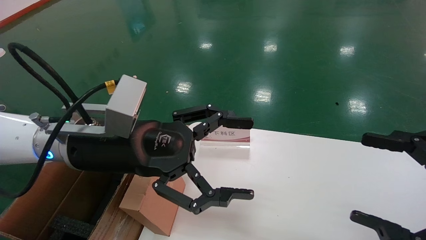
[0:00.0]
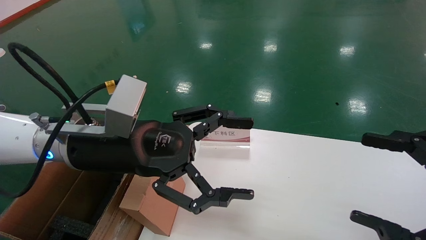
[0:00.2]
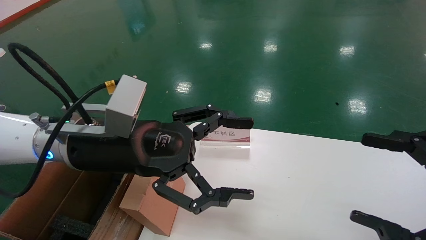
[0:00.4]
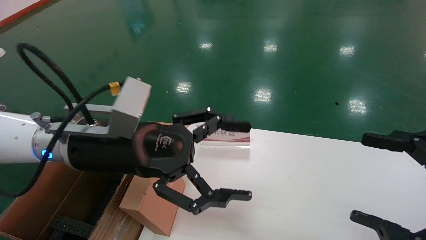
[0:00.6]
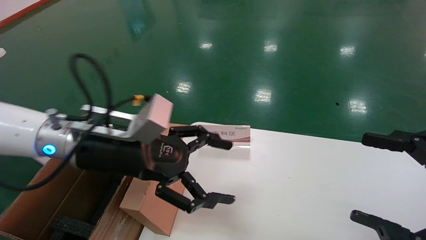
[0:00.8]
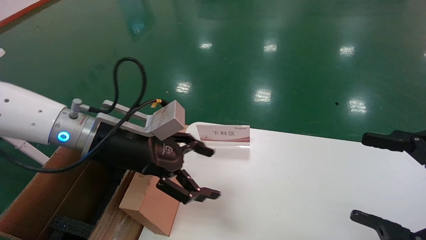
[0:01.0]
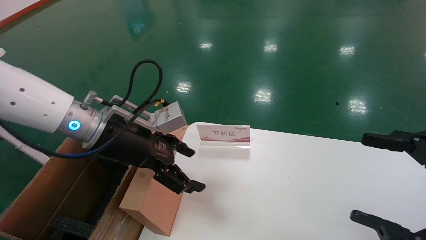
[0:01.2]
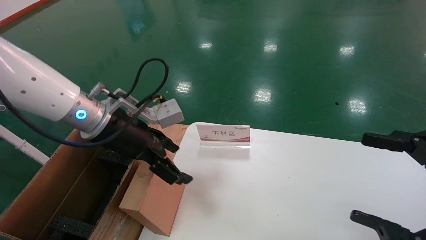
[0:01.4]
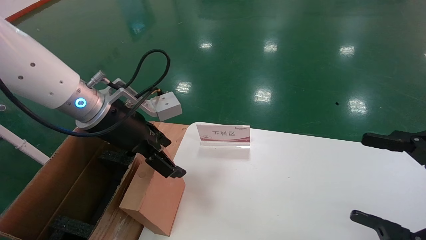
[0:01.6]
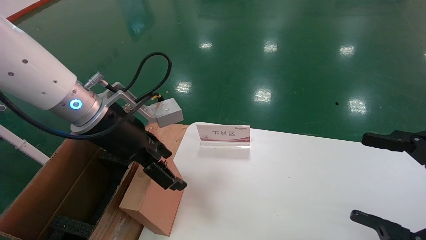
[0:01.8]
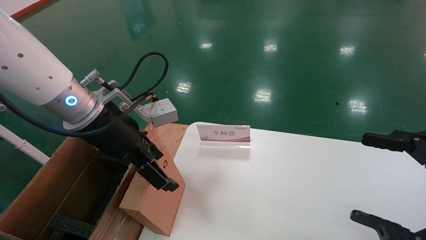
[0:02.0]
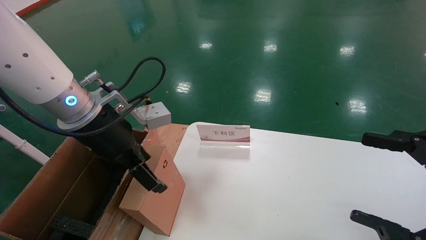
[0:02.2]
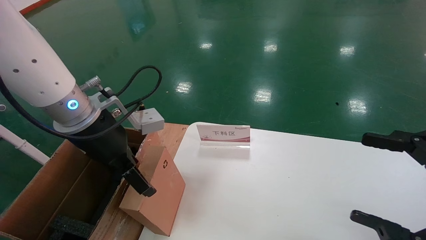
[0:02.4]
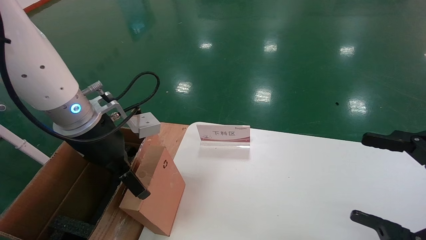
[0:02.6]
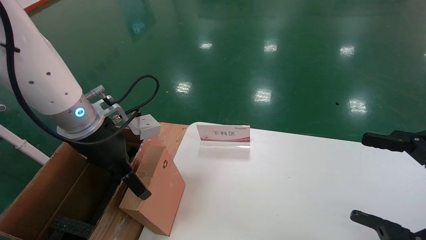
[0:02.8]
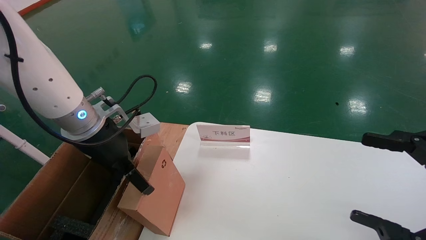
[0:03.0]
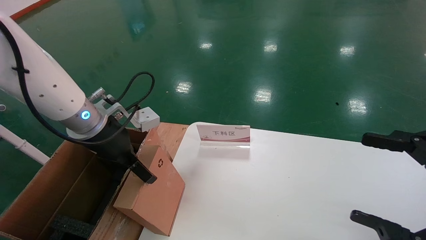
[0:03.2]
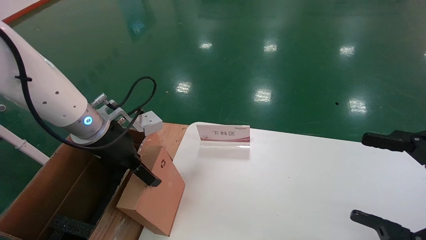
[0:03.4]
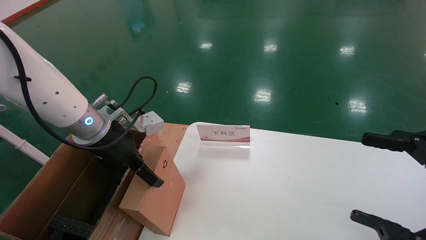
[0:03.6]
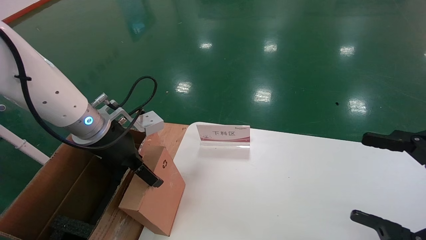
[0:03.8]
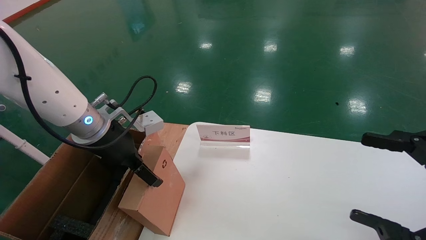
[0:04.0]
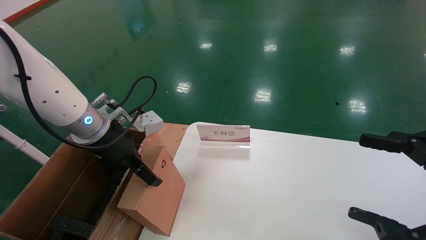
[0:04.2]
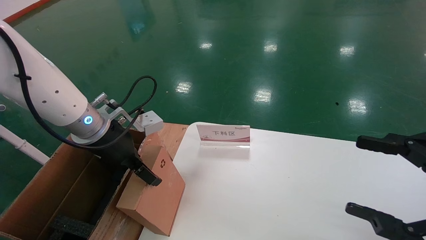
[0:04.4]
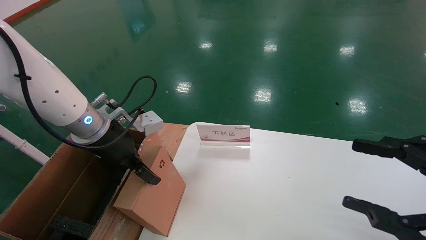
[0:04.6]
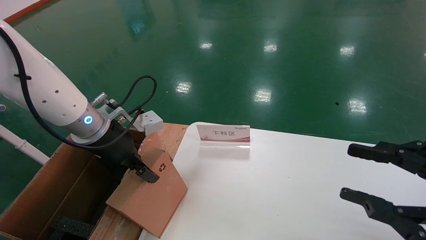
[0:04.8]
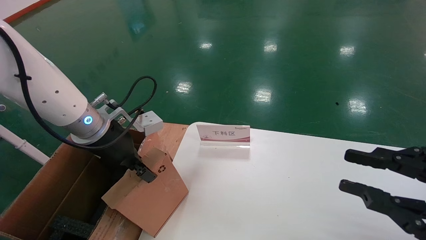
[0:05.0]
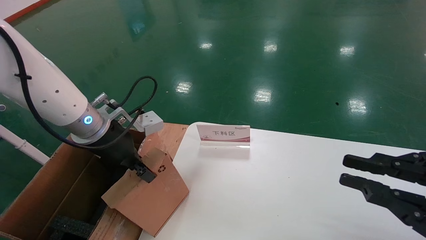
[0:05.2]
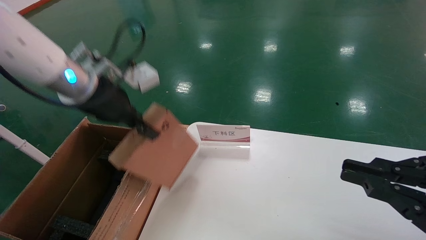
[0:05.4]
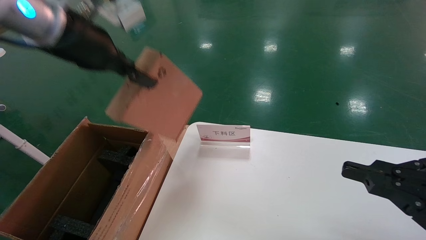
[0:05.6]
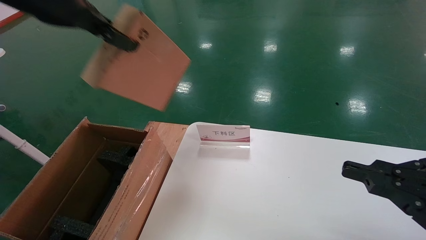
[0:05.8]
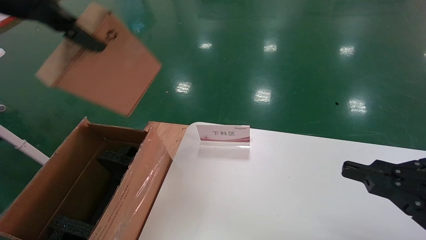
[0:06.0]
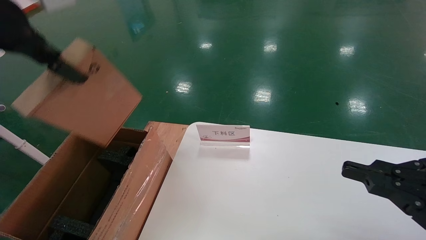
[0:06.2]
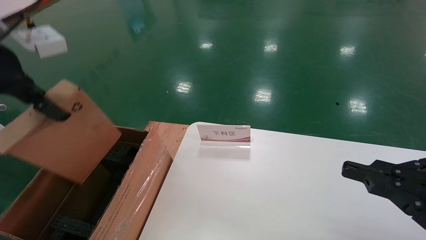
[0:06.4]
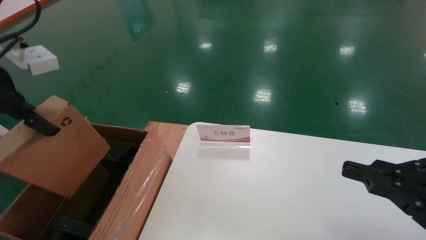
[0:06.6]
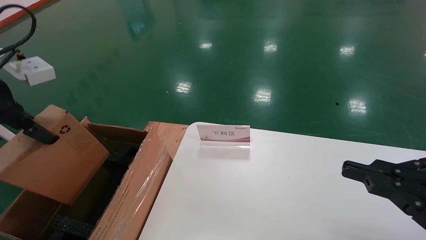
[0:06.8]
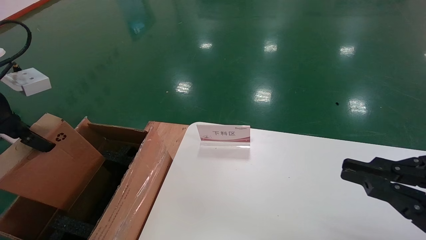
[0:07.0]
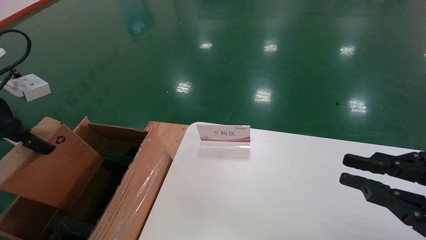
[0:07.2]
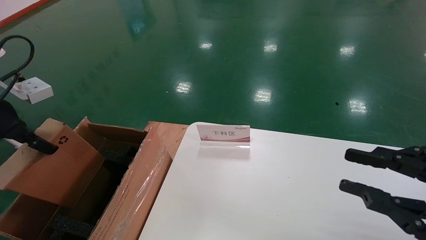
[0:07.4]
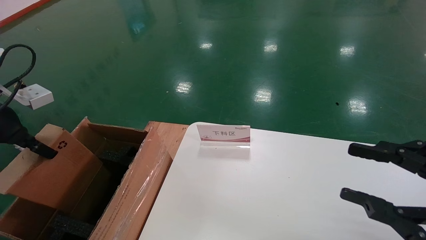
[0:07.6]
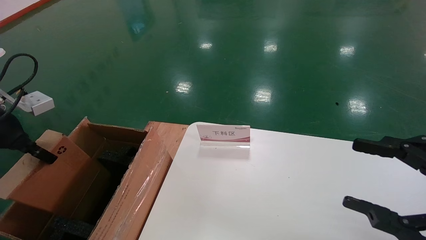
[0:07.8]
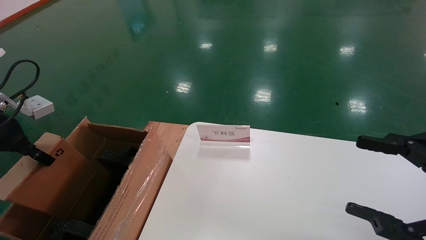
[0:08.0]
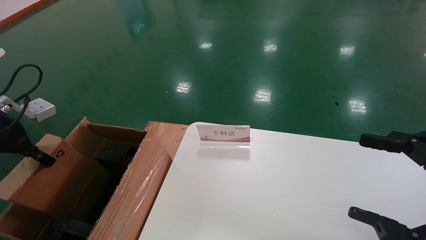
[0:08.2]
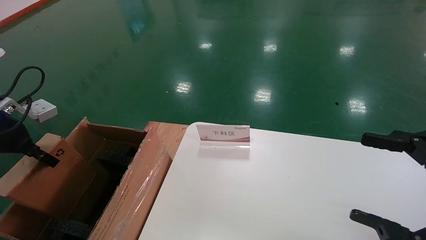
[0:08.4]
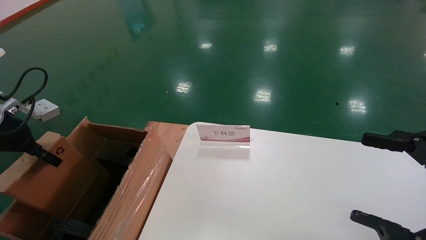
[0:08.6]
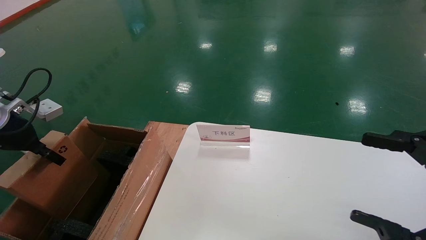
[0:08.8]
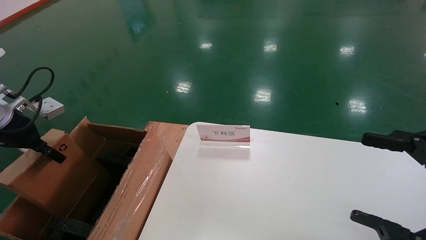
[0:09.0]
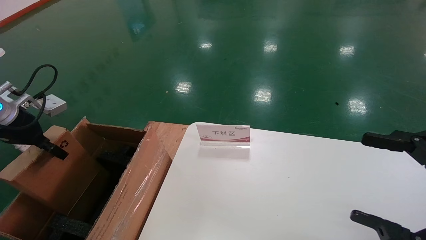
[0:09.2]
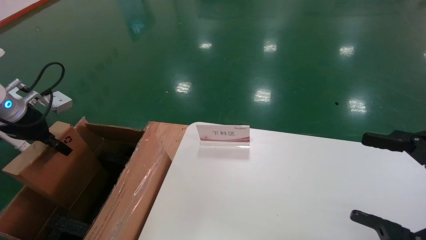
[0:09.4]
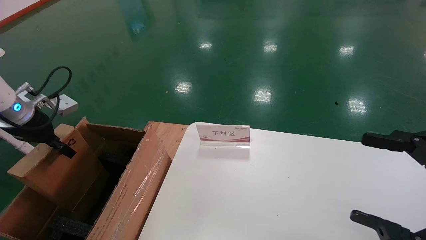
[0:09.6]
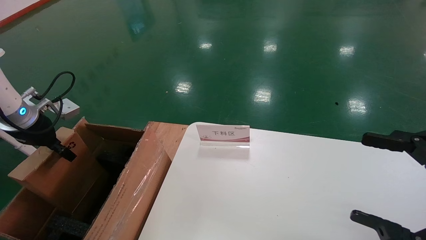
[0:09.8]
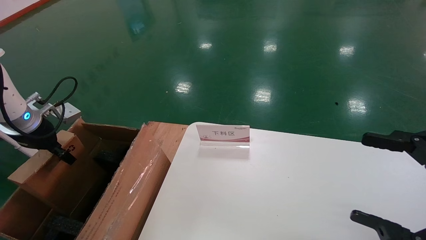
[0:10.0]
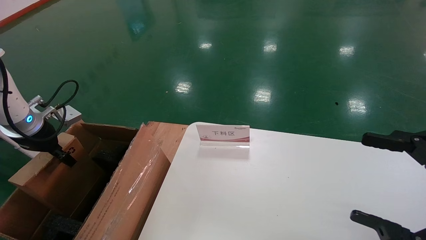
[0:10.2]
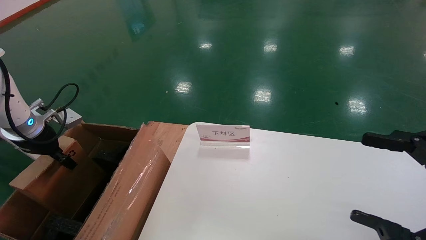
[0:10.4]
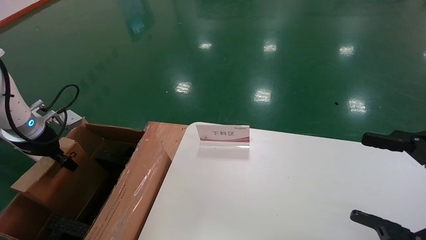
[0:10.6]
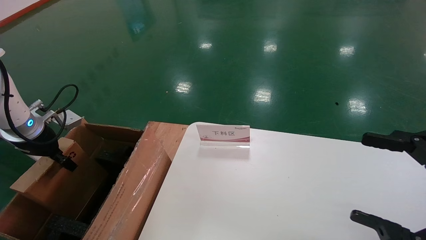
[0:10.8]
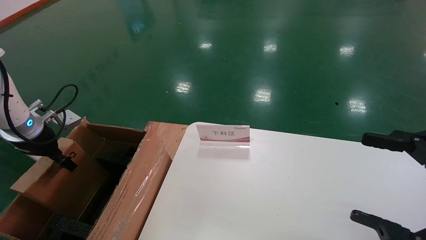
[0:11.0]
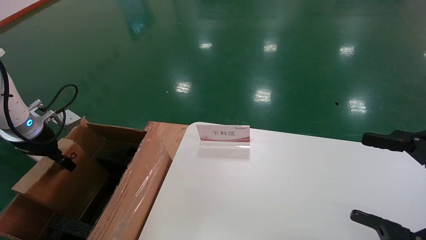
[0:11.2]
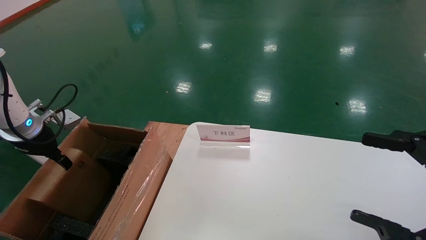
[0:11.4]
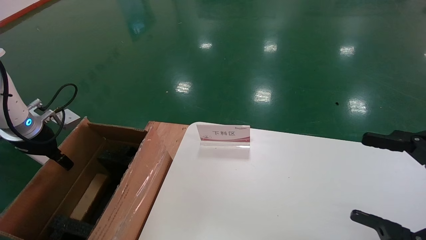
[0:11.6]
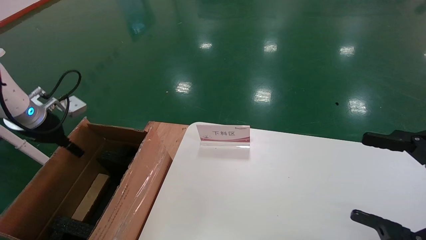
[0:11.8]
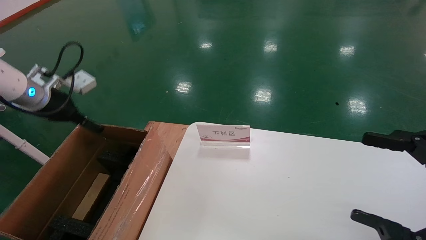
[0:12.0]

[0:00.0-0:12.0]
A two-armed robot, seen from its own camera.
Task of the whole recording: pick up the small cardboard box and load it into the large cardboard box.
Step, 0:00.8 to 0:05.4: Pick up the mouse and power cord box.
Step, 0:05.6 to 0:11.8: Place the mouse and power cord box into the case.
0:00.0 to 0:01.6: The left gripper moves forward, about 5 cm.
0:03.0 to 0:04.4: The grippers stay close to where they were, moving slightly.
0:04.4 to 0:06.0: The right gripper closes, while the left gripper shifts approximately 25 cm upward, and closes up.
0:06.0 to 0:07.6: The right gripper opens up; the left gripper goes roughly 20 cm downward and to the left.
0:07.6 to 0:09.0: The right gripper opens, while the left gripper is displaced forward by some 5 cm.
0:09.0 to 0:10.4: The left gripper ends up some 5 cm from where it was.
0:10.4 to 0:12.0: The left gripper travels upward by some 5 cm, and opens up.

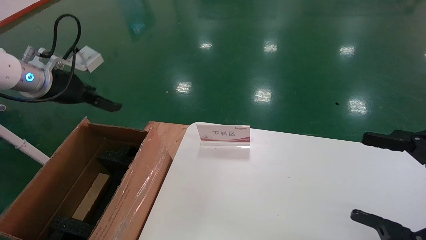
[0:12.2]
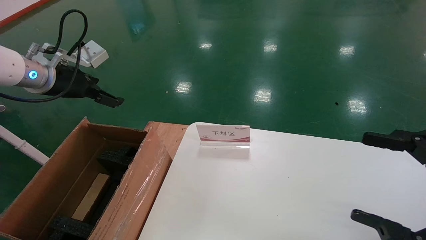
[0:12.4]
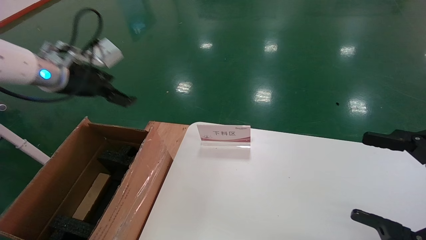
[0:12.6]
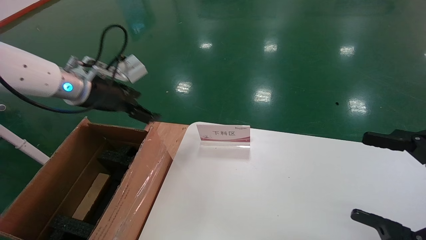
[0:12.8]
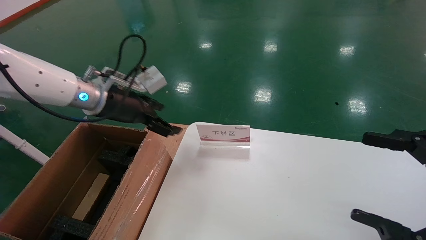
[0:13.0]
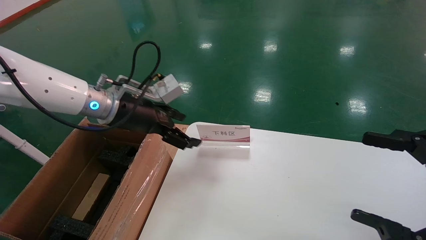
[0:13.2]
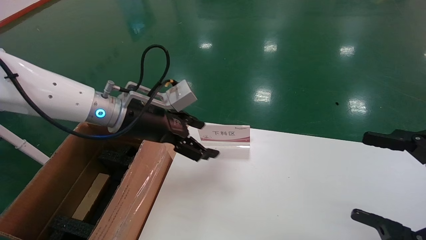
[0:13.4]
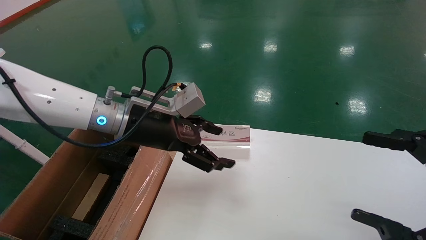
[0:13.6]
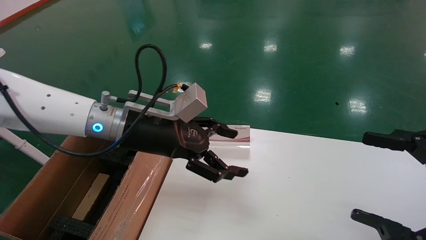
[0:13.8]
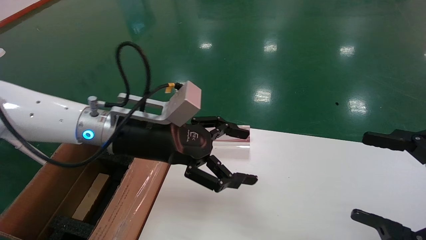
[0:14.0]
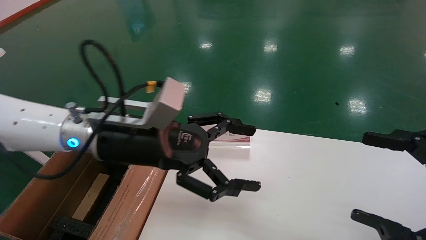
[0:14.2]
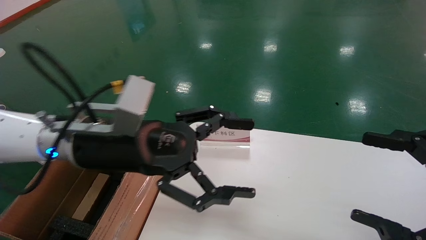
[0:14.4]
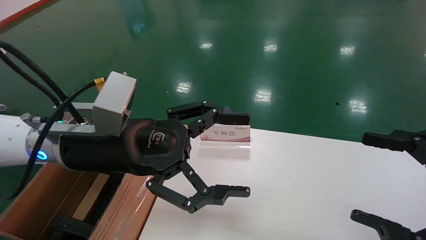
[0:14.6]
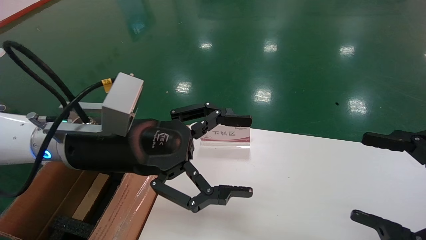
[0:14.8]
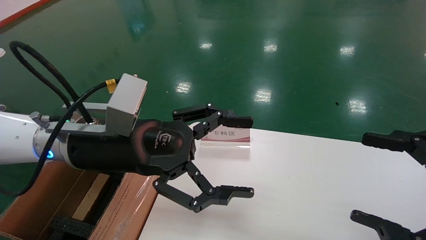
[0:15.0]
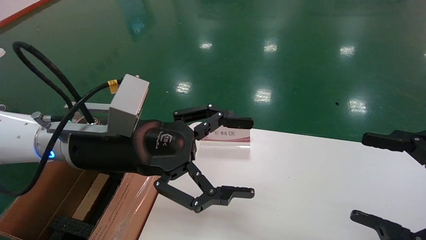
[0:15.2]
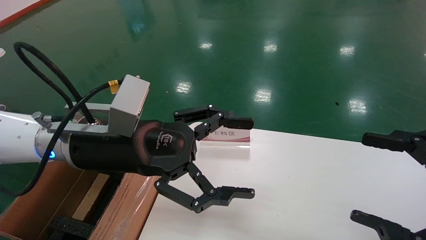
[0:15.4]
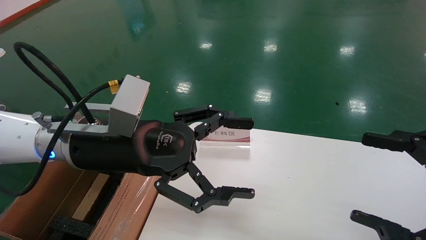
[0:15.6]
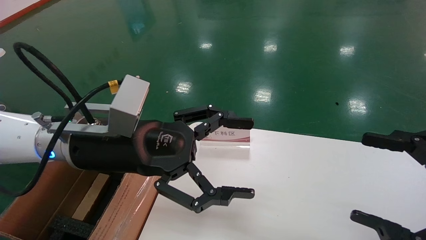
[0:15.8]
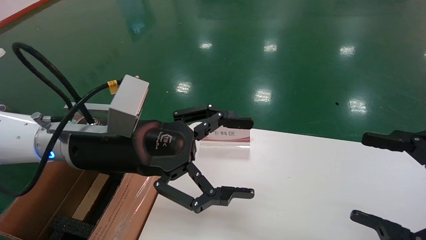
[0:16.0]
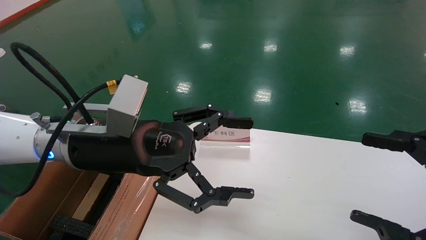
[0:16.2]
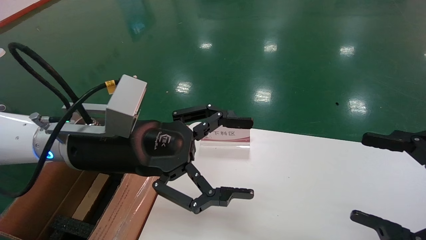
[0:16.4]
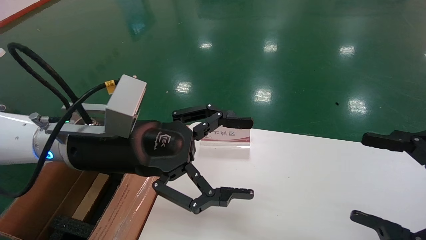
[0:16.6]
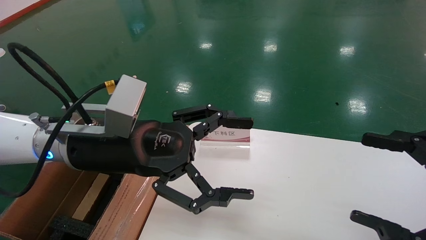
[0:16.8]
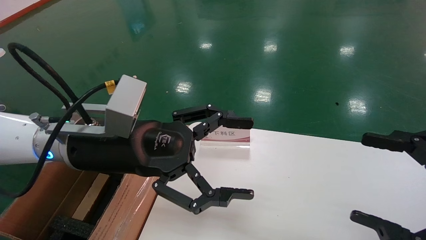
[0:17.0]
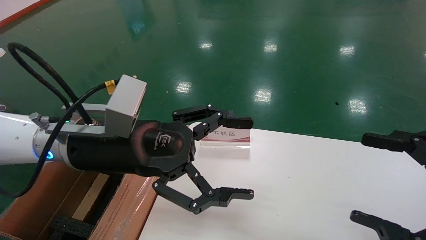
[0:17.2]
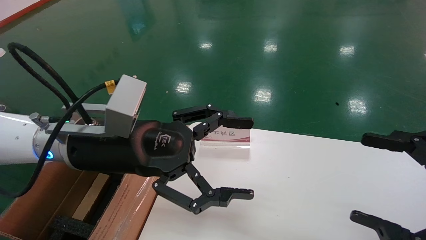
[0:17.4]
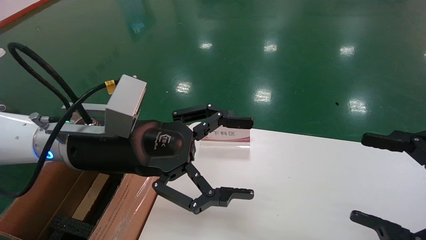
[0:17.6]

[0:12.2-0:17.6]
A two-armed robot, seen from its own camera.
Task of the whole recording: pick up the small cardboard box and load it into the large cardboard box.
0:12.2 to 0:13.6: The left gripper goes approximately 20 cm to the right.
0:13.6 to 0:15.0: The left gripper heads backward, covering about 10 cm.
0:15.0 to 0:17.6: Both grippers stay about where they are.
